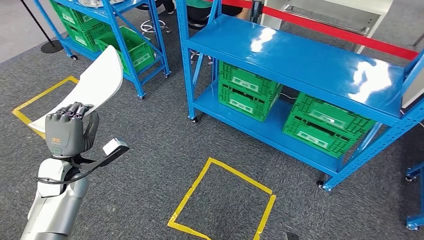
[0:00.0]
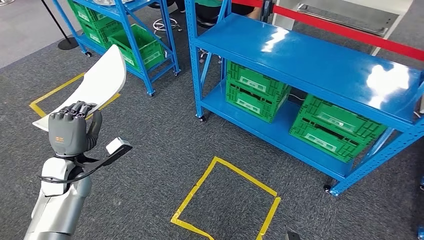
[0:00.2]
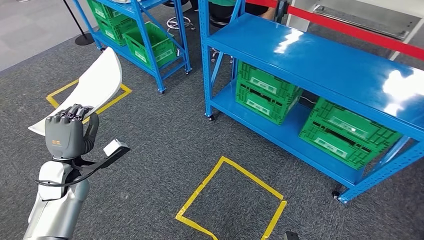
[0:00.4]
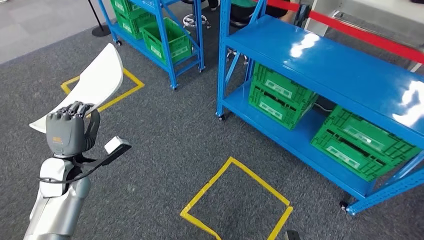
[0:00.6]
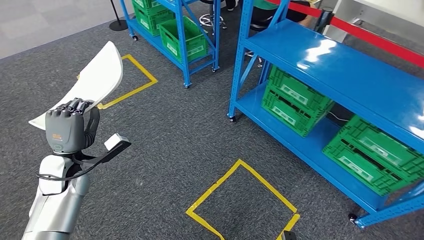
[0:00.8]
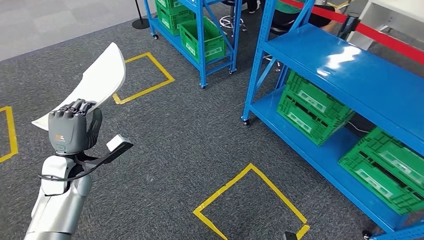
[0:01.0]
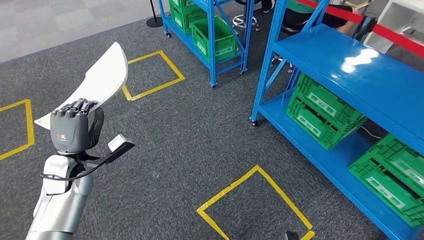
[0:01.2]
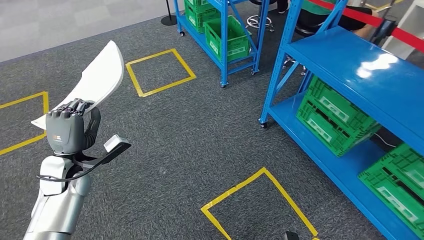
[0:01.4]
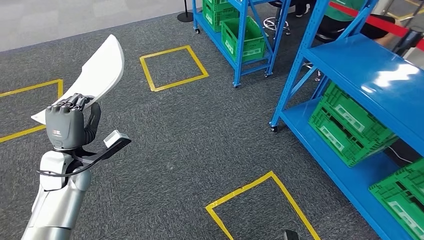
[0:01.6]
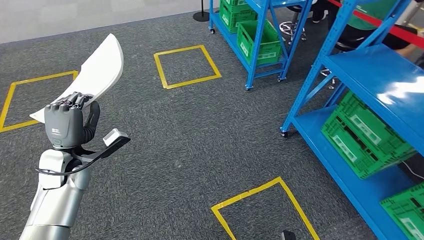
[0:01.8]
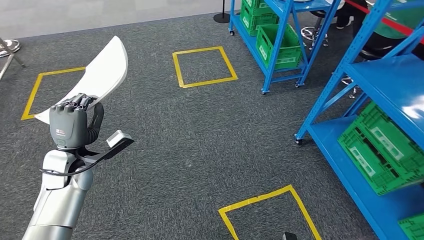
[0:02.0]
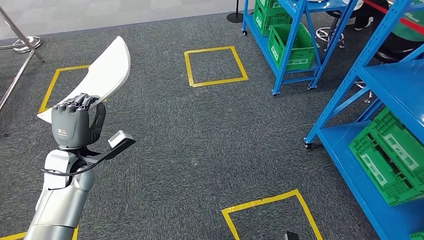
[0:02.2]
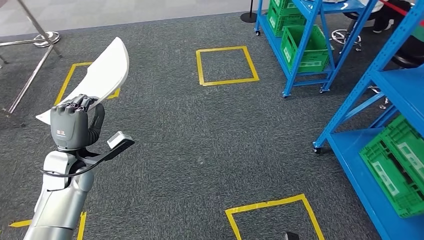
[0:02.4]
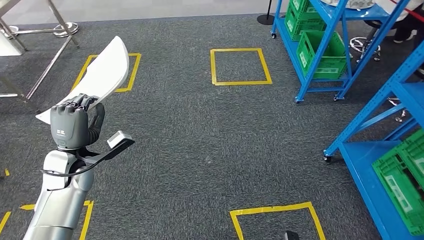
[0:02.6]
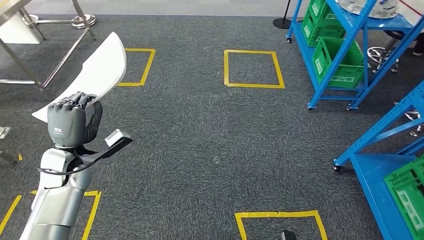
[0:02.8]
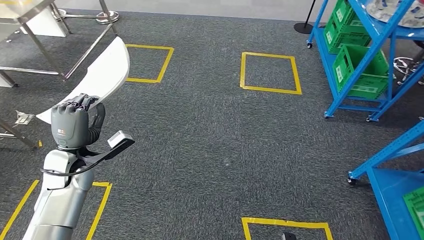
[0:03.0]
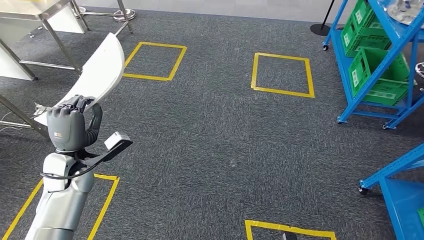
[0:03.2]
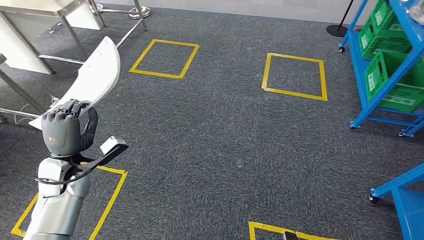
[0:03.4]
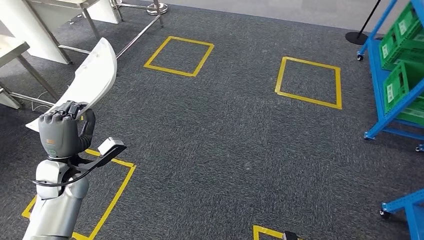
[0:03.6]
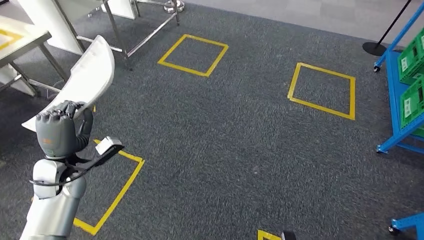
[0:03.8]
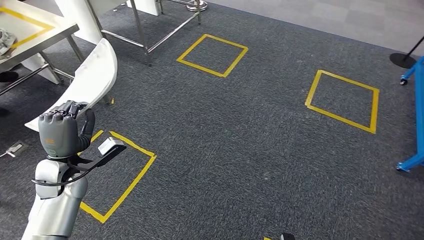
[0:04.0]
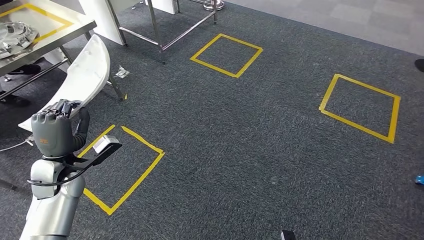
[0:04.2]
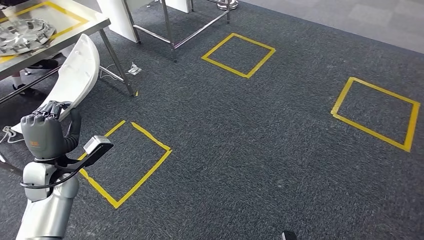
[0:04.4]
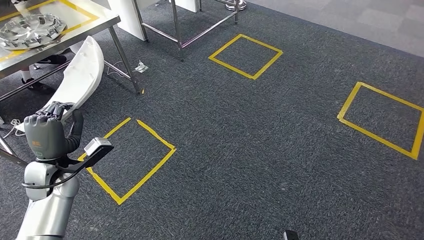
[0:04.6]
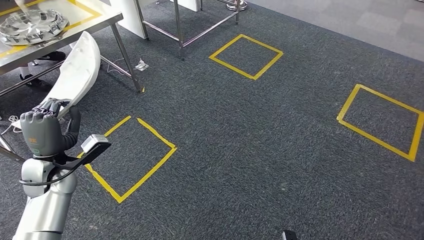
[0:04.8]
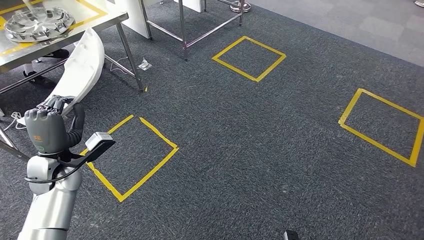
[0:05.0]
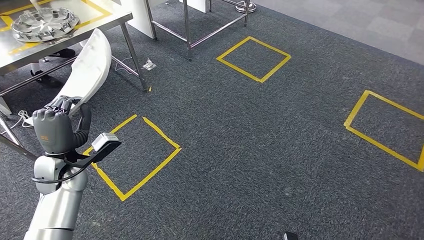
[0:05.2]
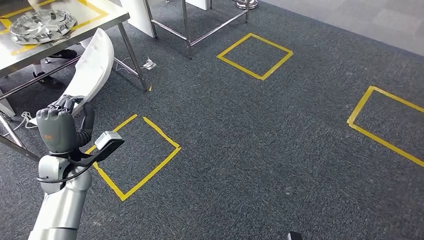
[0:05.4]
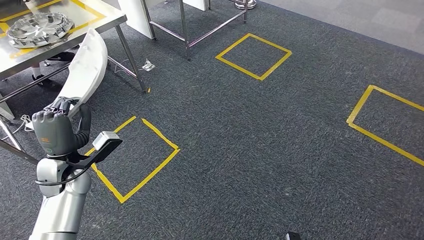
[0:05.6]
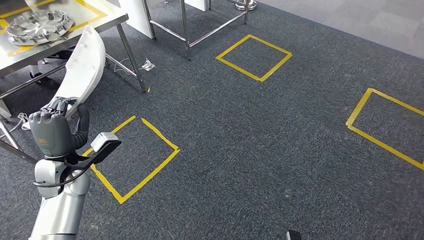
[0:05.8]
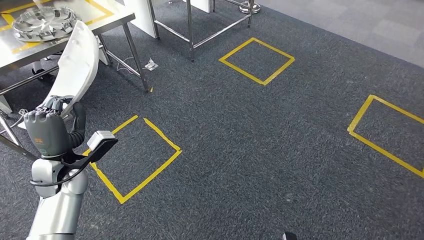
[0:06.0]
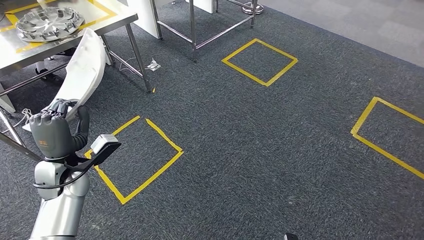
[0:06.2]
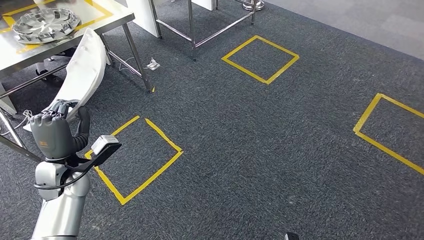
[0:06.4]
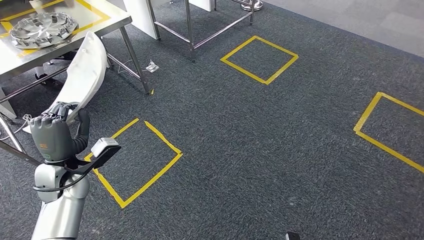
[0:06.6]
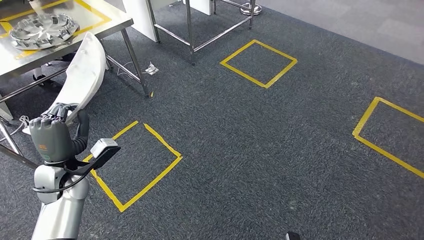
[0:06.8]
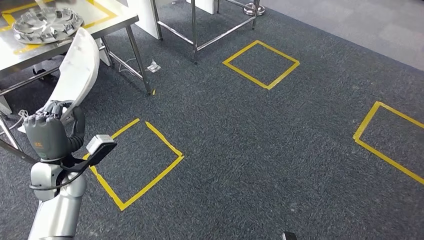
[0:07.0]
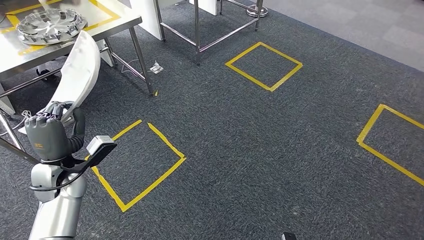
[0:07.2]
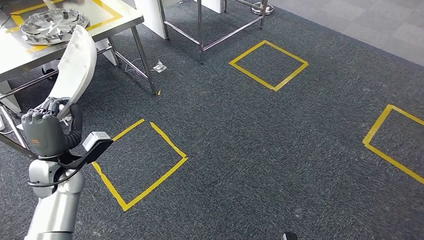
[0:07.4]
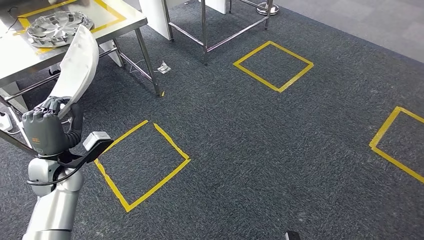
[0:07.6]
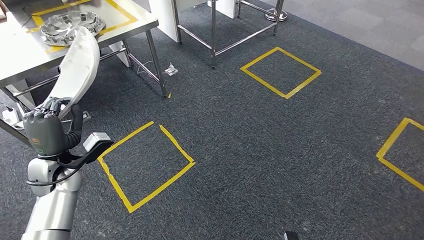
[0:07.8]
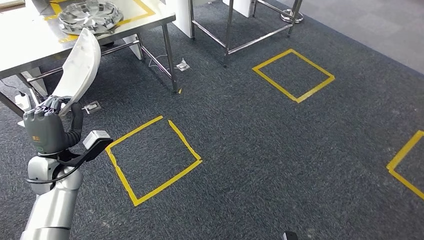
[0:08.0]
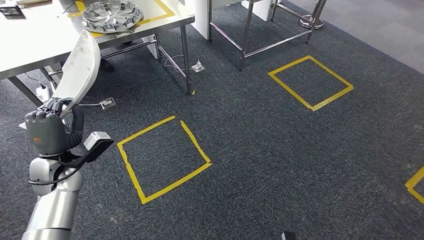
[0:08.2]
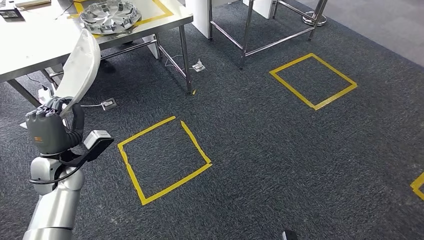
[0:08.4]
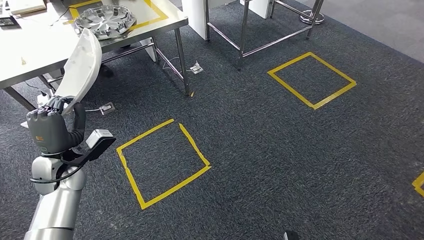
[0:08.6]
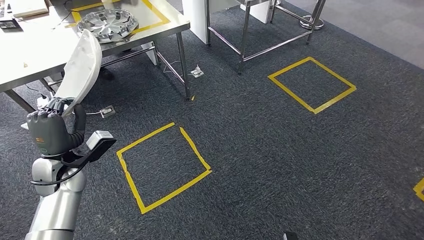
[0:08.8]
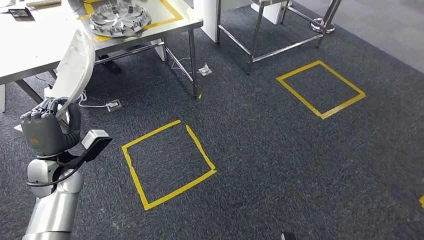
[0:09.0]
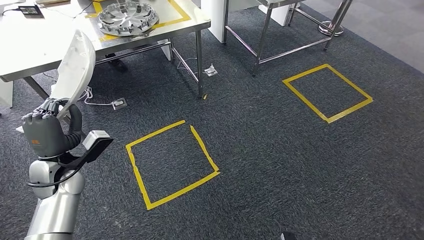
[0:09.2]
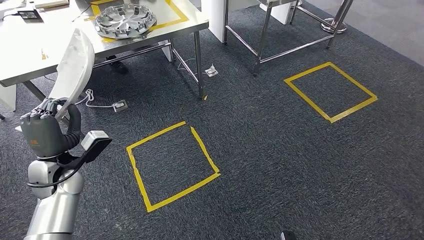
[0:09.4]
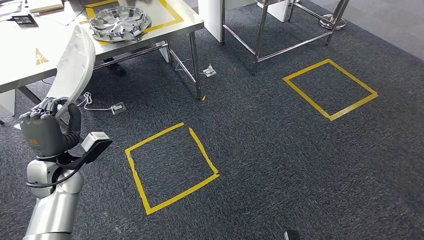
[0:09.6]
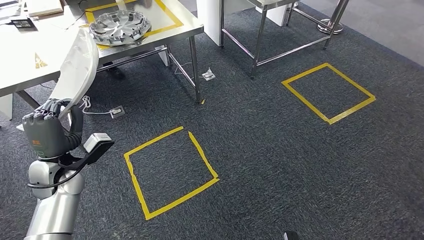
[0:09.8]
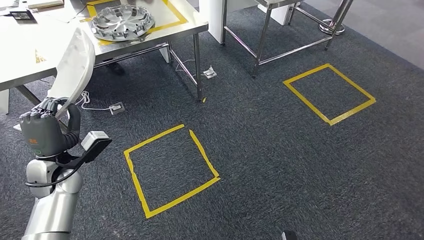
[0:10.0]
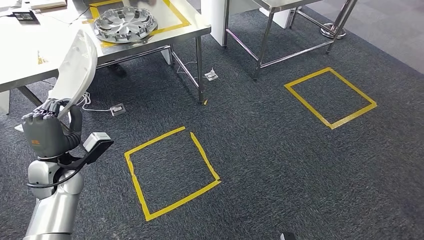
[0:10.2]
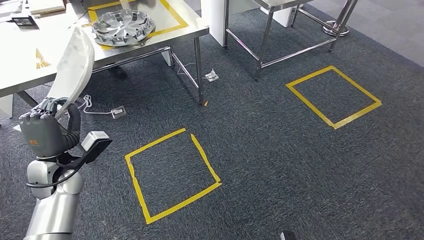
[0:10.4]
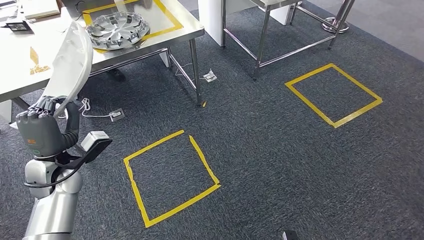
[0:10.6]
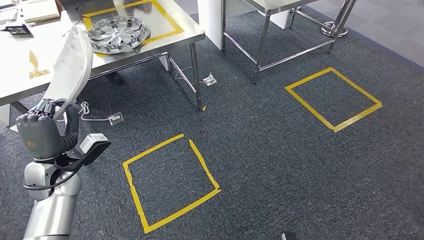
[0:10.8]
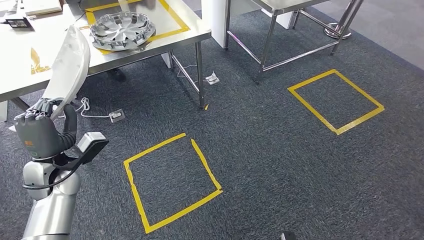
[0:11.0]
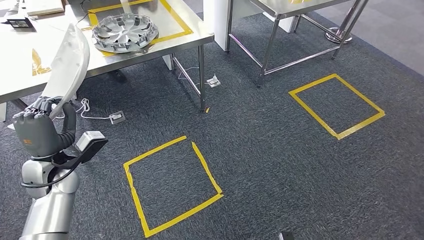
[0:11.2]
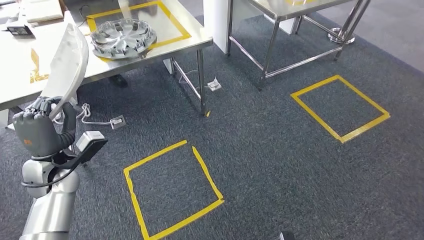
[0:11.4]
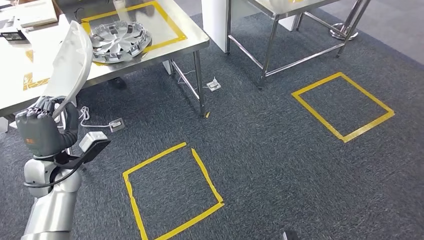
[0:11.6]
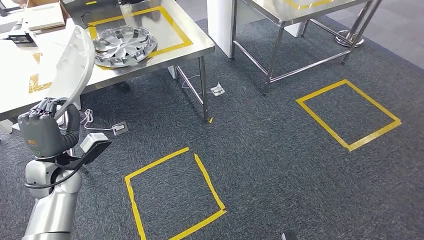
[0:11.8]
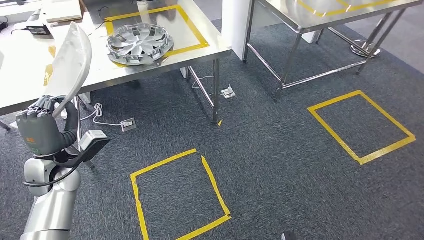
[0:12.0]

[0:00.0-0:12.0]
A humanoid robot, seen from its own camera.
0:09.0 to 0:10.4: Neither hand changes place.

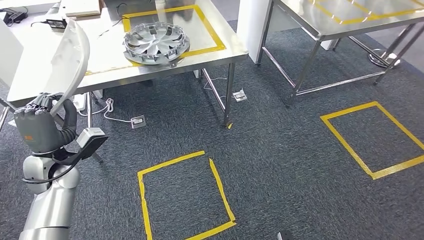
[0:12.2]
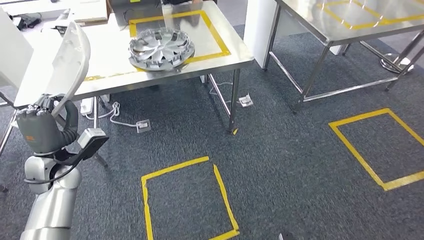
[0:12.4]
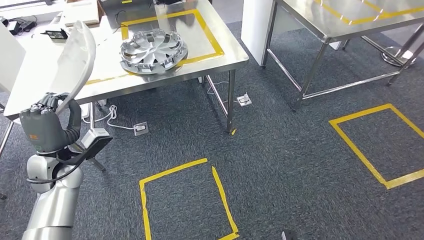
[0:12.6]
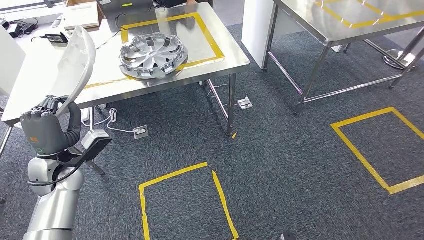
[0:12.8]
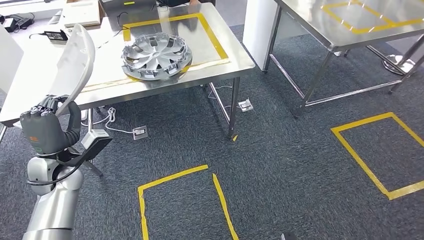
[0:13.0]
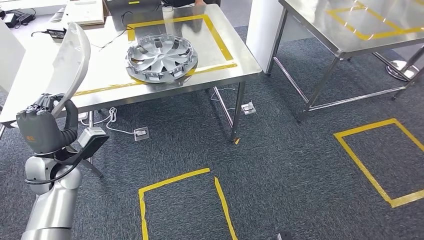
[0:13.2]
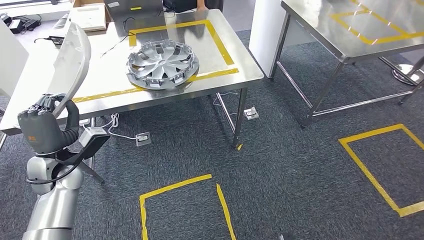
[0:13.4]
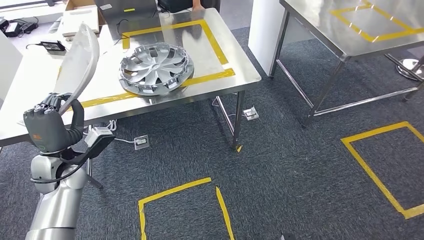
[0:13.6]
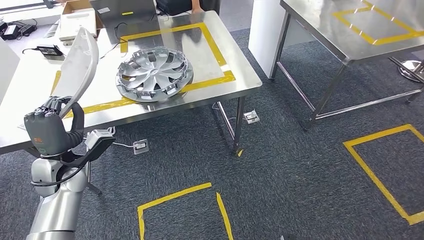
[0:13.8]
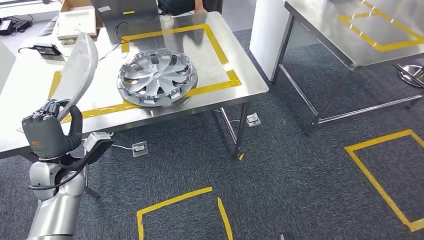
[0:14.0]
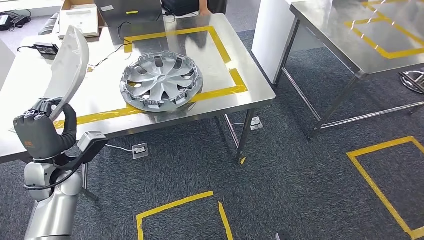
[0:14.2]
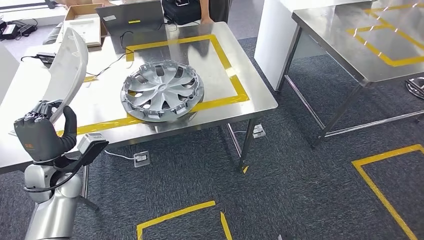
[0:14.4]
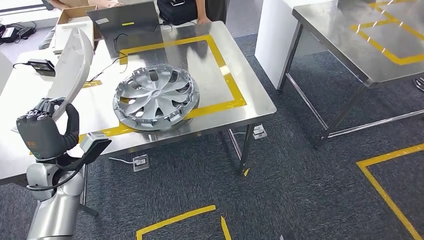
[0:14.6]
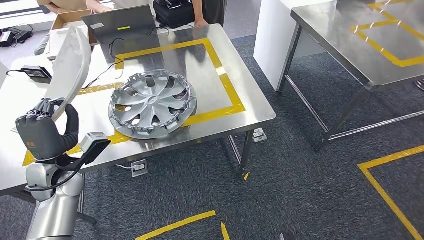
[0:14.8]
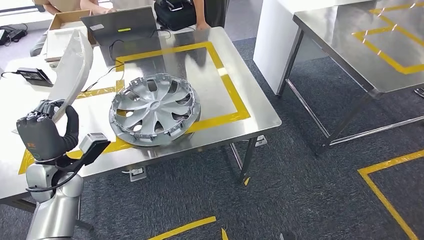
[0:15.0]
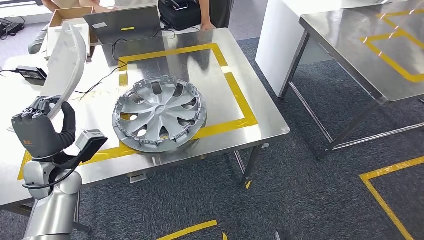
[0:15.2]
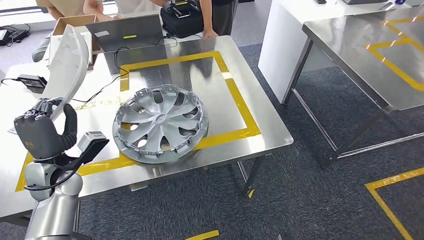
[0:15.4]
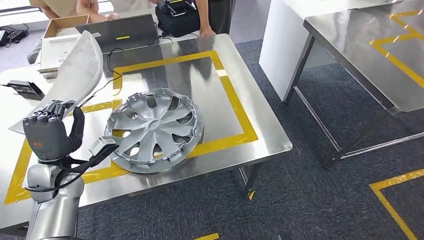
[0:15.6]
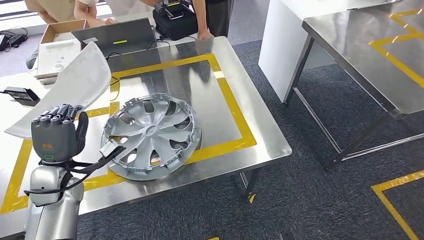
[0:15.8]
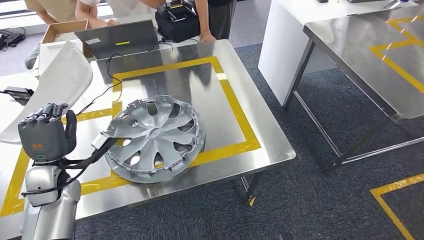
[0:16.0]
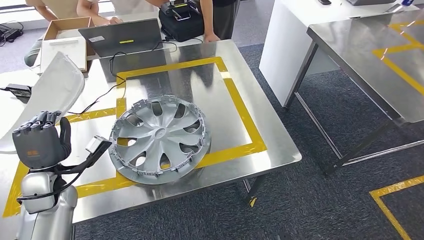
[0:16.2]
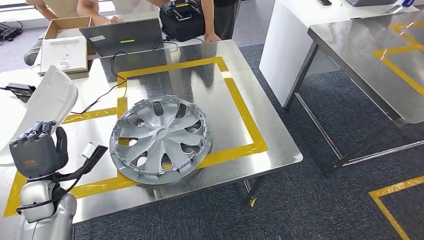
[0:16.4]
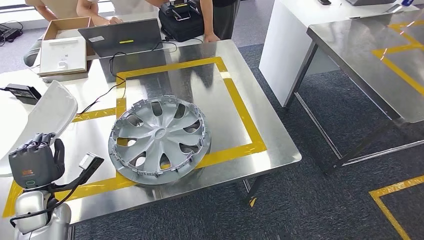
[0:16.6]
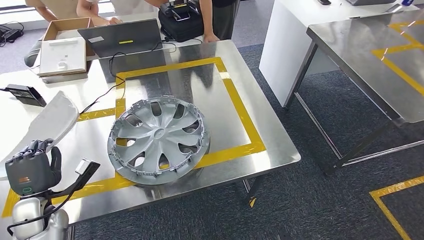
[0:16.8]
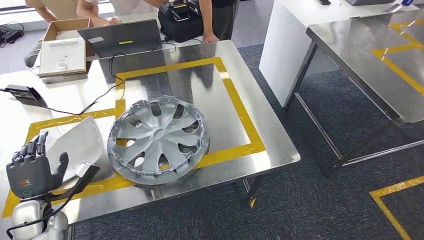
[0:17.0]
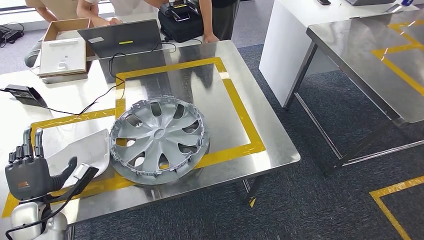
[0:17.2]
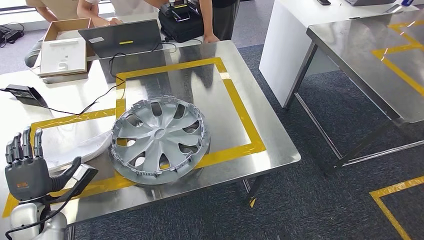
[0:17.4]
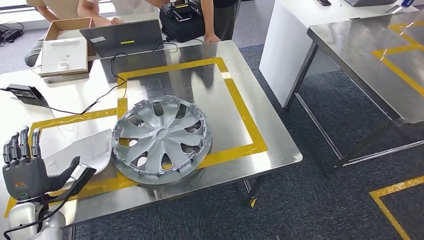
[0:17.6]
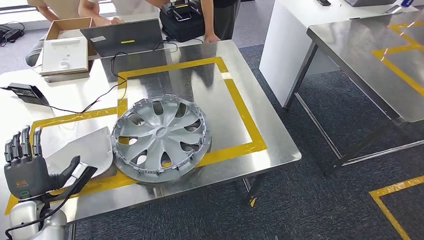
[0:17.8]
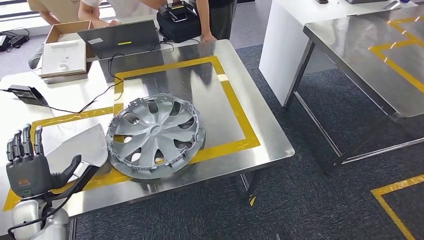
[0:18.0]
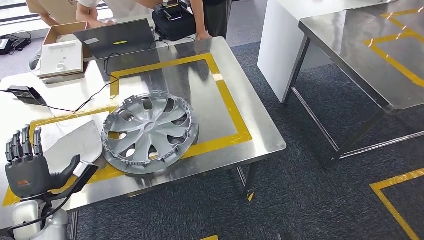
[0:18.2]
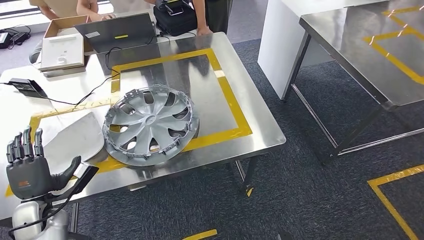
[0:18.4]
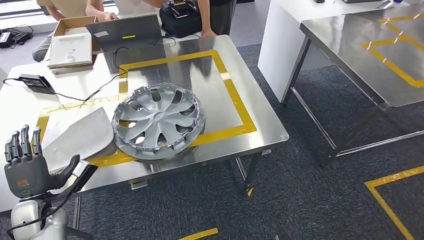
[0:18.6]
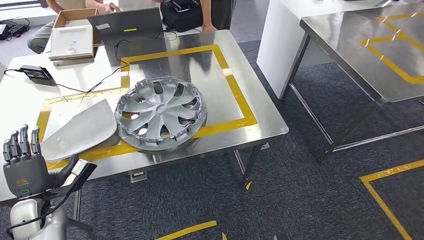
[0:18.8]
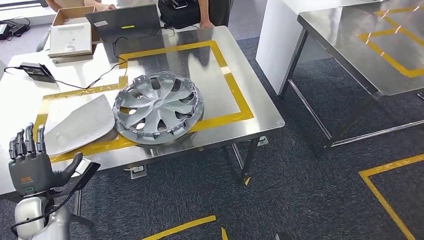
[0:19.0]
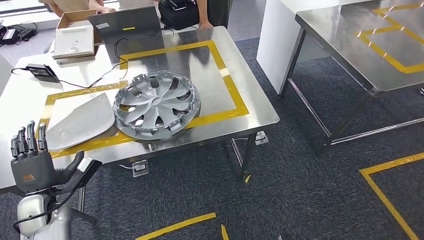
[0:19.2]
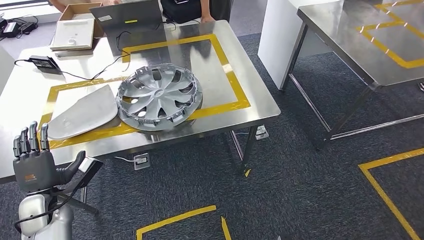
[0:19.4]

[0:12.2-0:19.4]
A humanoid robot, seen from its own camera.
Step, 0:14.0 to 0:17.8: Insert the small component into the corresponding slot on the workbench.
